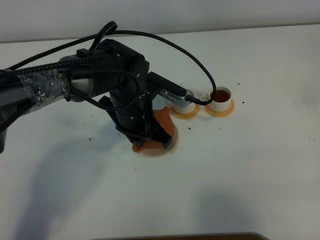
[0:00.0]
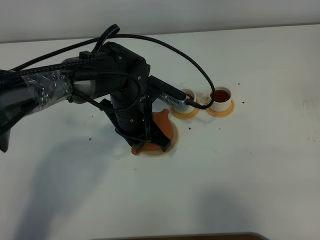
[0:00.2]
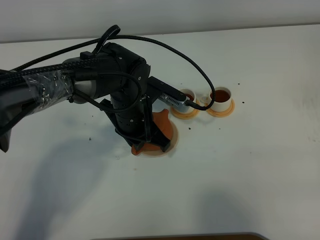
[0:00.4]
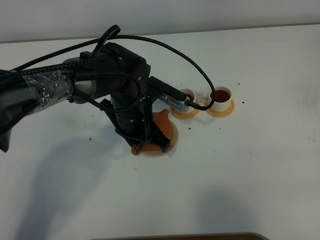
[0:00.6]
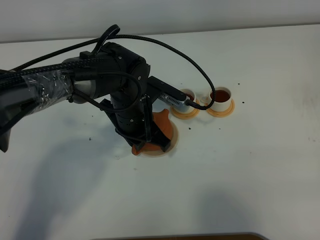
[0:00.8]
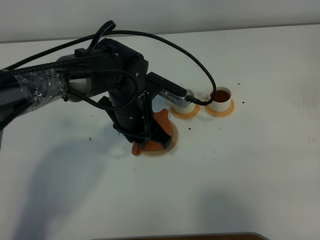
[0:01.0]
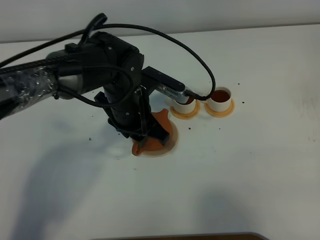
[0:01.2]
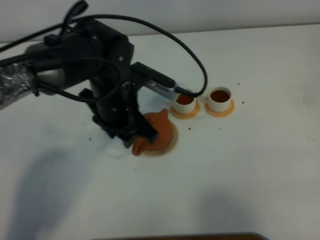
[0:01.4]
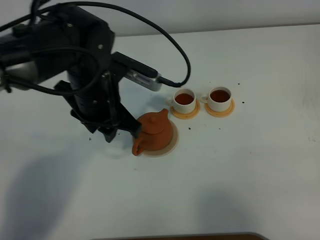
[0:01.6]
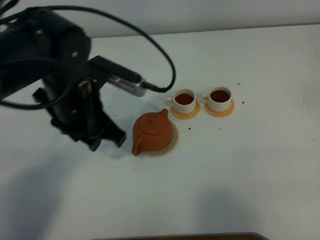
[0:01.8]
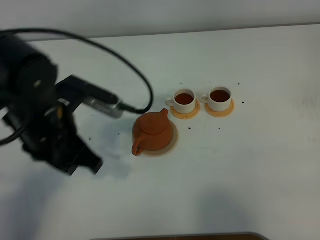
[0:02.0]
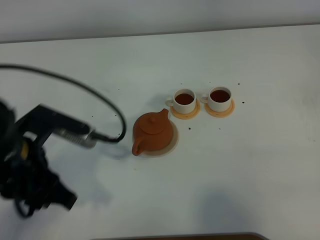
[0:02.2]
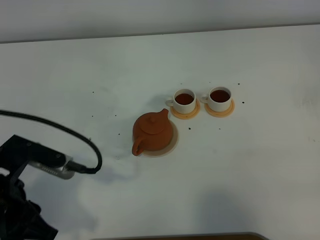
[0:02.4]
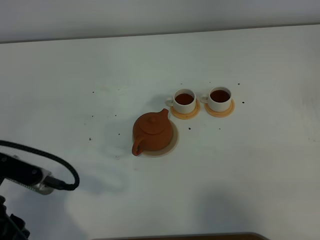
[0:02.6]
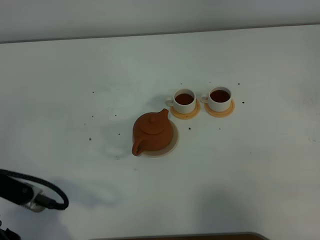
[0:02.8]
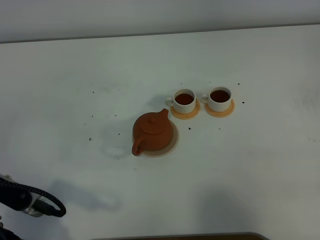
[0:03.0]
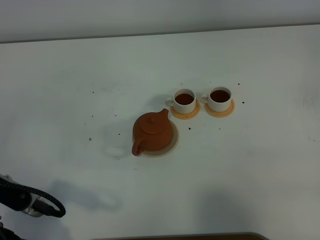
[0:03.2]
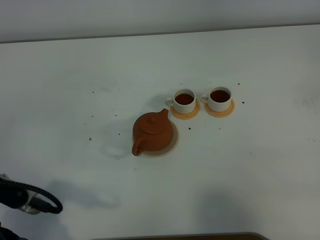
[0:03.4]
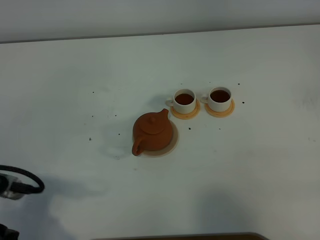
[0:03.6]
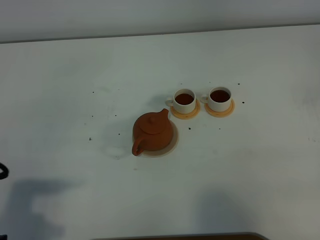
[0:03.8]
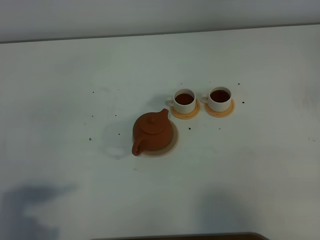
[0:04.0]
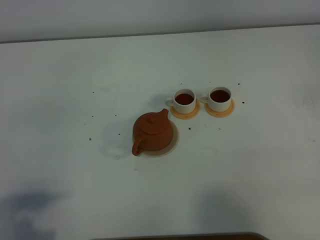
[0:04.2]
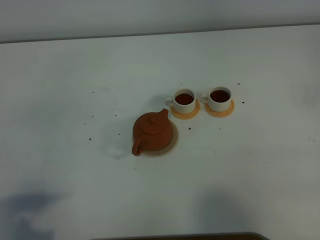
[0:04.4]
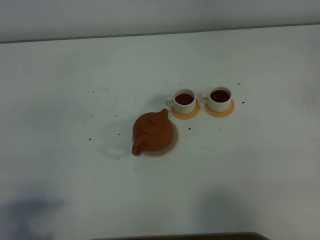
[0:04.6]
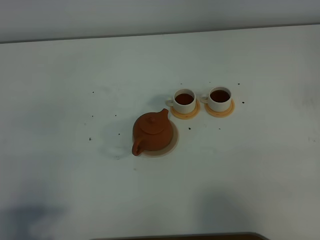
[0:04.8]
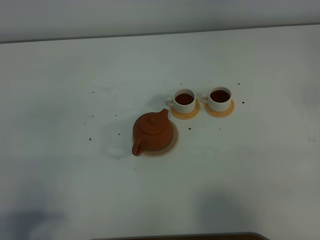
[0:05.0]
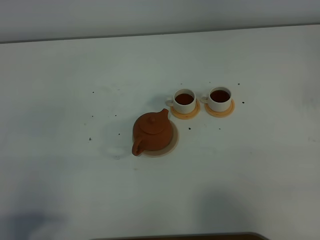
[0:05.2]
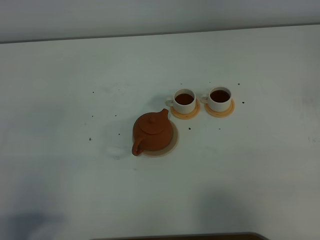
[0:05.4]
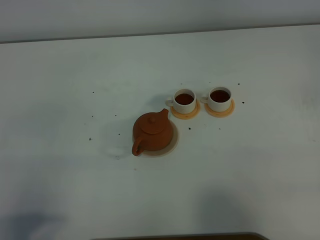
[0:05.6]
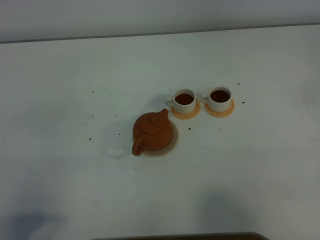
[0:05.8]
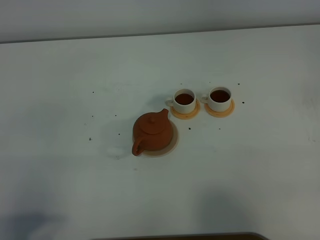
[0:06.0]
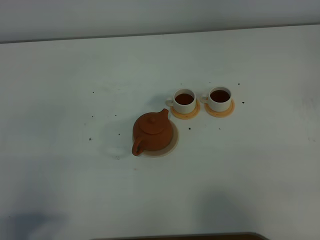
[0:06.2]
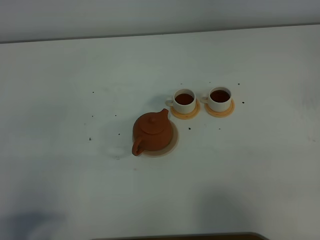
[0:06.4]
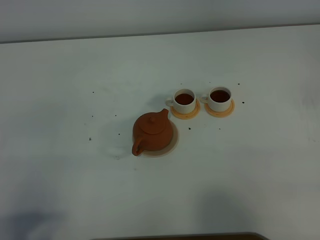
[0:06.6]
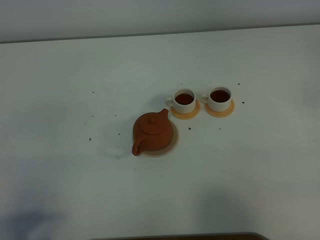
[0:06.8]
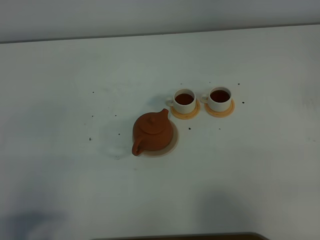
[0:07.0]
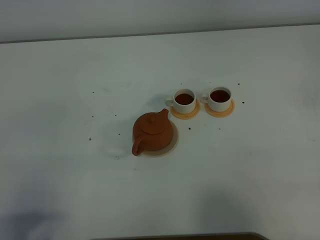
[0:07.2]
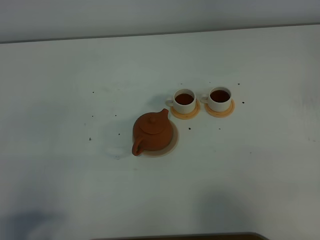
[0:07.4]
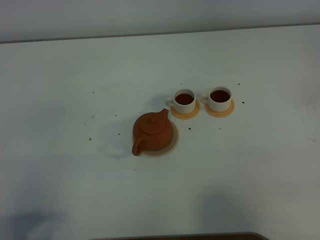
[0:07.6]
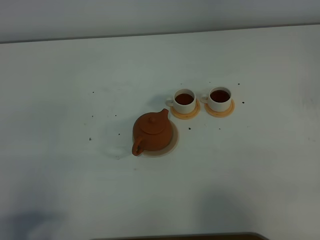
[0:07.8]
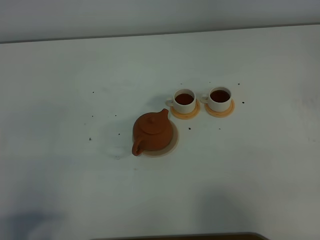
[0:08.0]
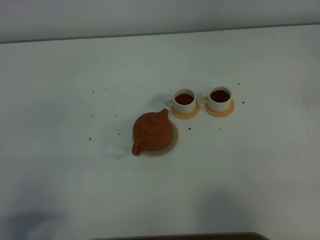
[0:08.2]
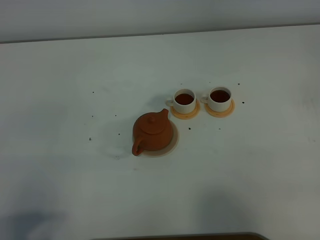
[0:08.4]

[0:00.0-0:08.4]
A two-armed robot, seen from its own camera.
Task of the whole recording: grasp the brown teapot and pour the tea into the two white teacups one by one, put the brown teapot back in its original place.
0.0 to 1.4 s: The left gripper moves upward, some 5 cm, and opens its fingers.
1.4 to 2.8 s: The left gripper heads backward and to the left, covering about 25 cm.
2.8 to 4.2 s: The left gripper travels to the left and backward by roughly 5 cm.
5.6 to 8.4 s: The two grippers keep their place.

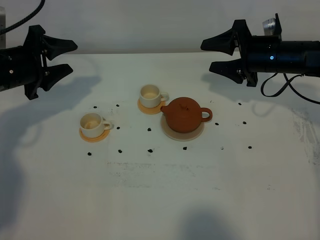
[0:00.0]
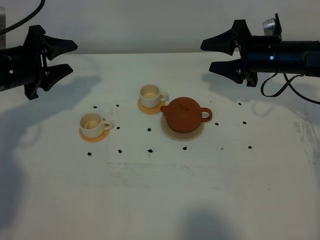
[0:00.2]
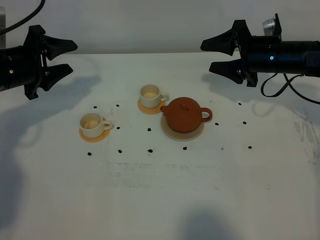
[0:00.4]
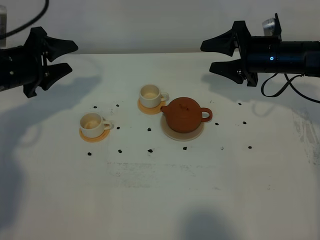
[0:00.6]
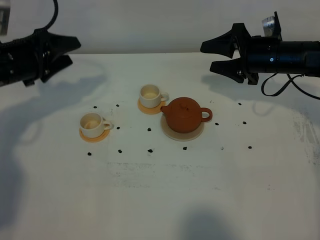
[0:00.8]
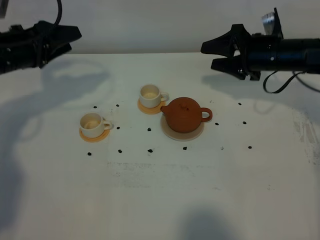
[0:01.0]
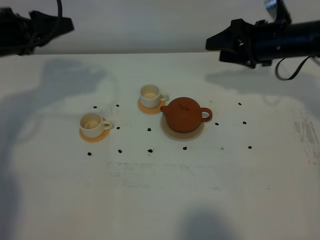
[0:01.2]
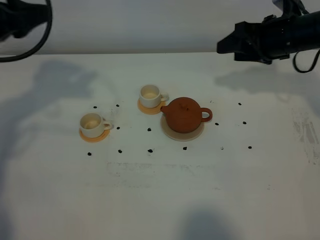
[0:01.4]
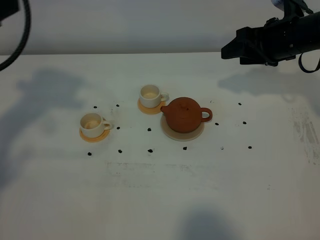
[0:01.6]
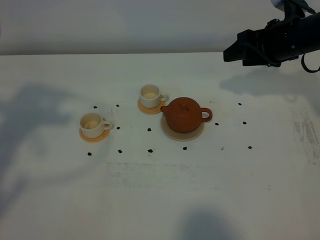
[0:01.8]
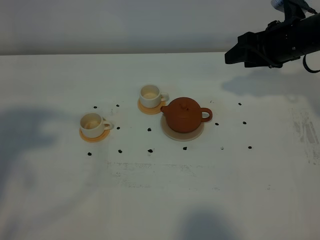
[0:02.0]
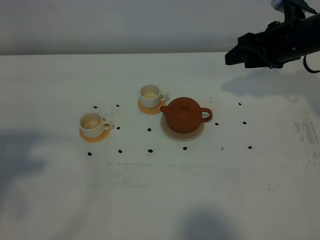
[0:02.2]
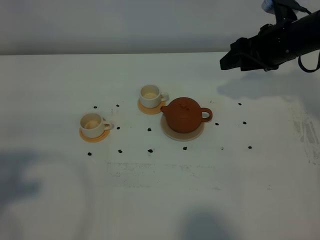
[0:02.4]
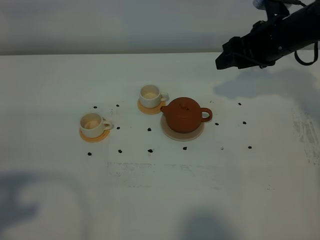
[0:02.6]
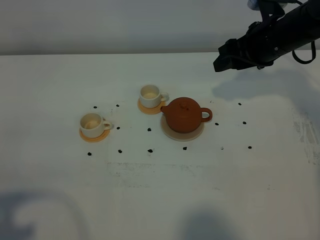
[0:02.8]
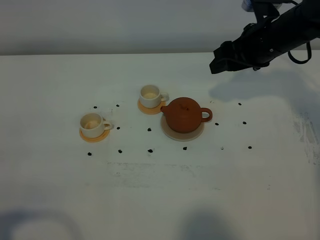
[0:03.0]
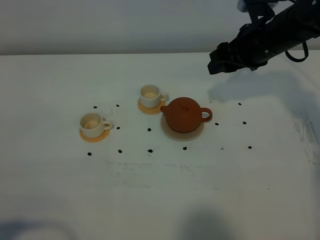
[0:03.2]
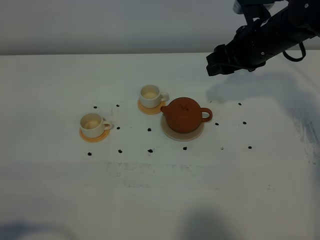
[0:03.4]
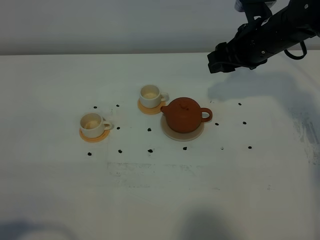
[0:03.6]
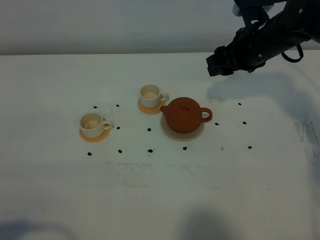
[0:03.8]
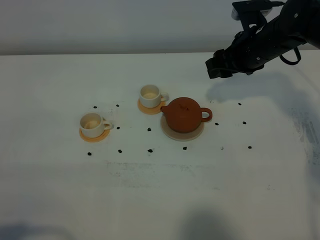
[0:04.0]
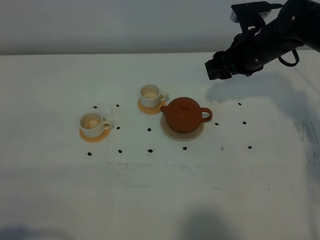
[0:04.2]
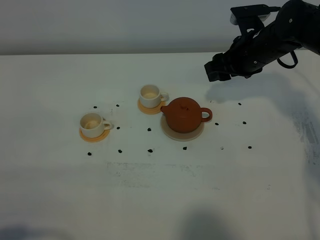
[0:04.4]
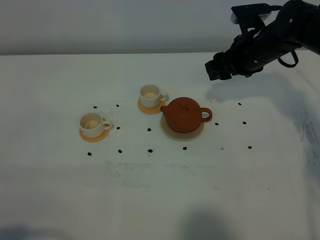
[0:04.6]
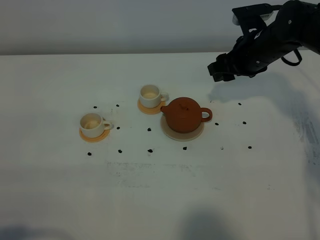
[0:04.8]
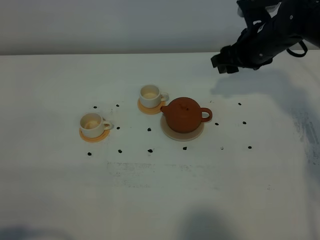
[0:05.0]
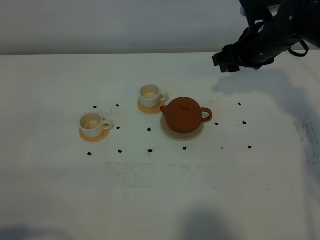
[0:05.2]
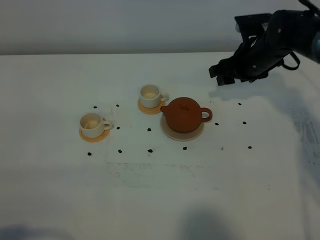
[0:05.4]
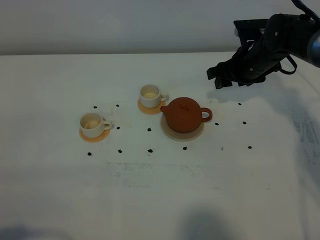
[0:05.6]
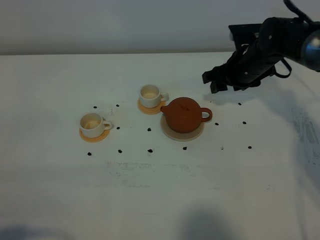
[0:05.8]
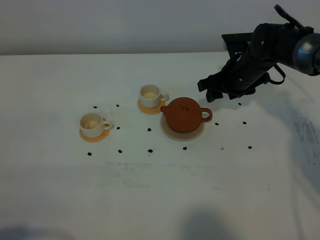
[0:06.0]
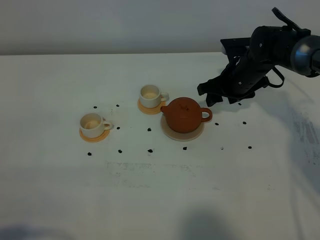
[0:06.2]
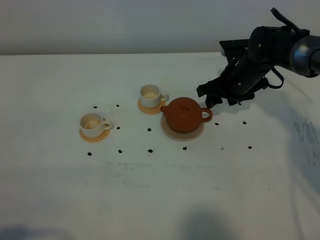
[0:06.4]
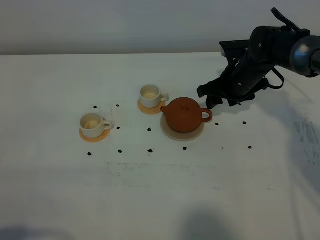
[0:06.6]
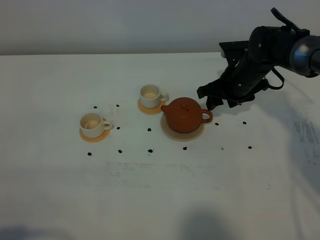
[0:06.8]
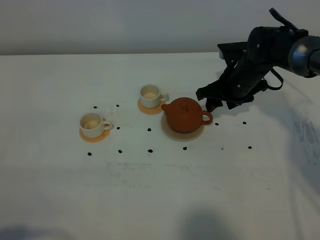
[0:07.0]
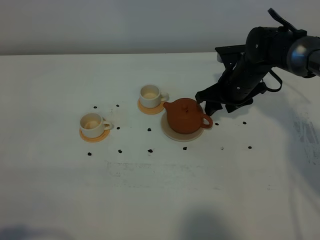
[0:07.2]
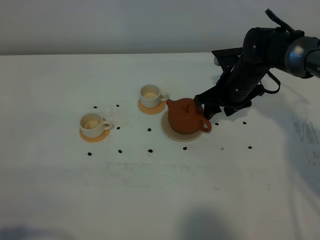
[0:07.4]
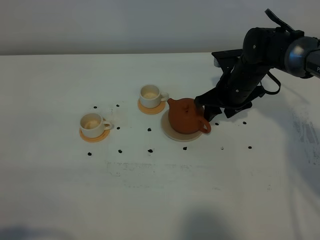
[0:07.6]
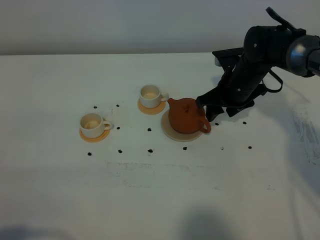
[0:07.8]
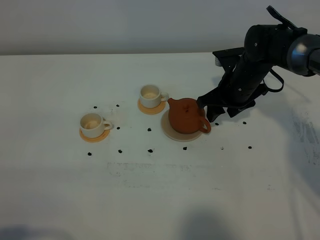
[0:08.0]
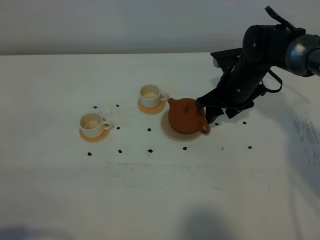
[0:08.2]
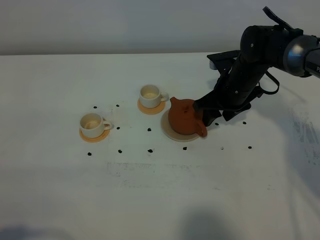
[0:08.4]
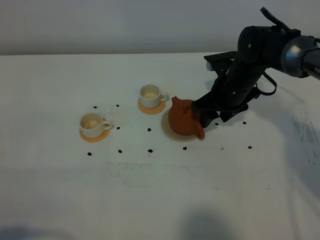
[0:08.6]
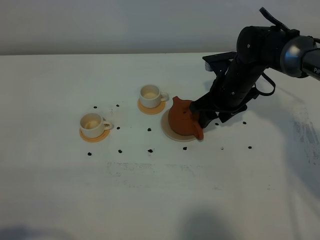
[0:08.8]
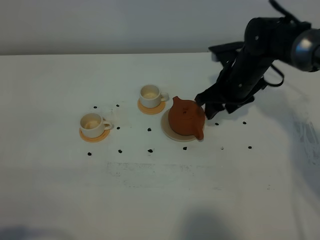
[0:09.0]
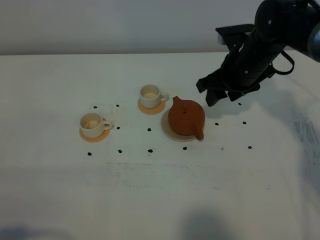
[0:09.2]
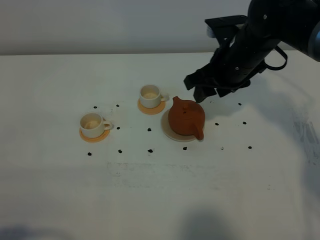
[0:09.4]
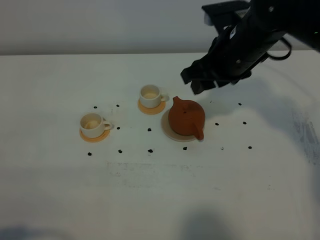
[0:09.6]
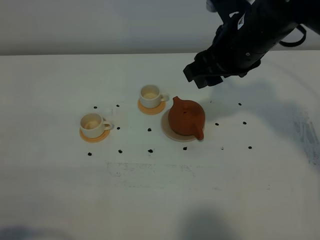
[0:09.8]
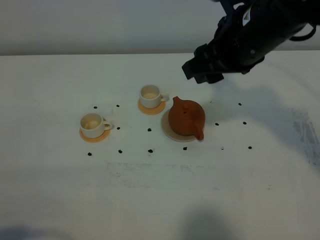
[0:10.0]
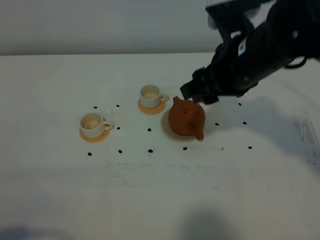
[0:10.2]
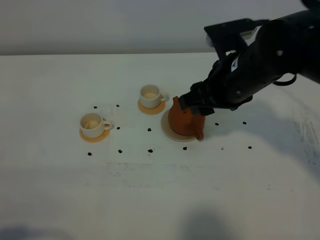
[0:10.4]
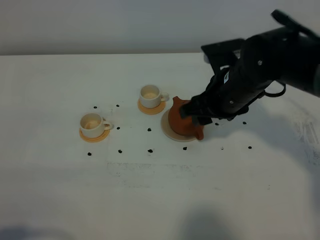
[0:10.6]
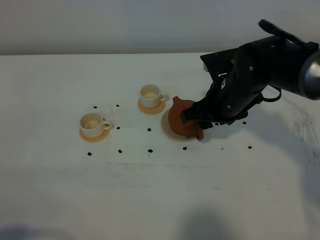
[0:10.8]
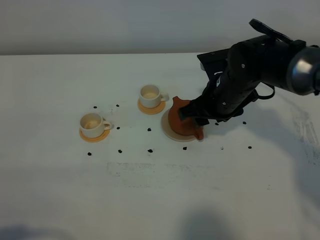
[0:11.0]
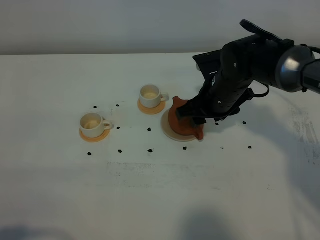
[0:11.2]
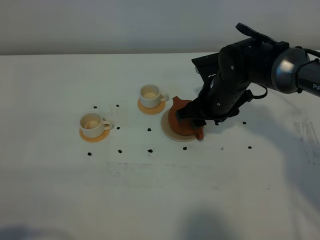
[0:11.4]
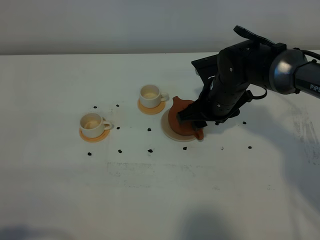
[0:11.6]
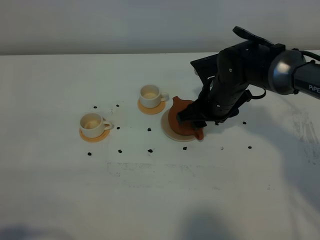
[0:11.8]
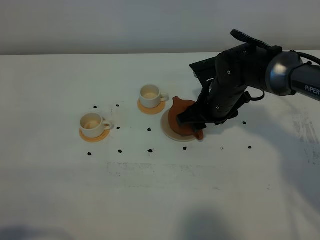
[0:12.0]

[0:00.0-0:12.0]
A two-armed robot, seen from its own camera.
Task of the whole recording: grasp the brown teapot and pour the tea into the two white teacups one by one, put the brown teapot back in its original place.
0.0 to 1.6 s: The left gripper goes some 25 cm upward and backward. The right gripper heads upward, covering roughly 5 cm.
1.6 to 3.0 s: The left gripper heads backward, covering roughly 25 cm.
3.0 to 4.4 s: There are only small adjustments of the grippers.
4.4 to 6.0 s: The right gripper goes approximately 5 cm downward.
6.0 to 9.0 s: There are only small adjustments of the grippers.
9.0 to 10.4 s: The right gripper heads backward and upward, covering roughly 10 cm.
10.4 to 12.0 s: The right gripper travels downward and forward by about 10 cm.

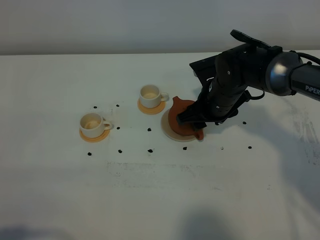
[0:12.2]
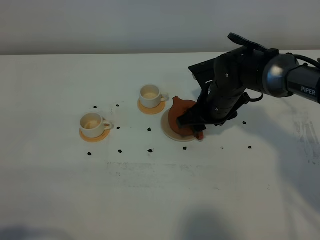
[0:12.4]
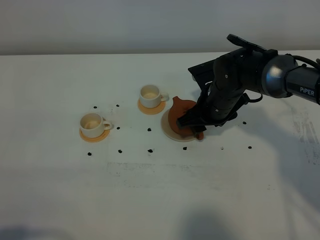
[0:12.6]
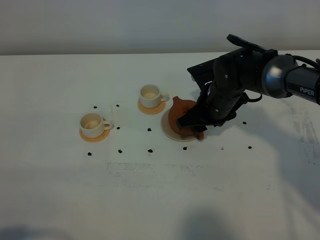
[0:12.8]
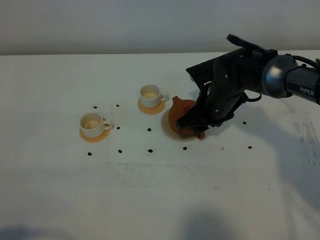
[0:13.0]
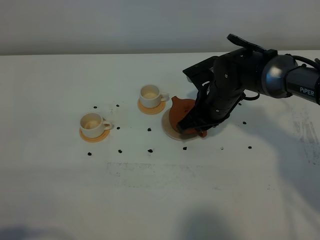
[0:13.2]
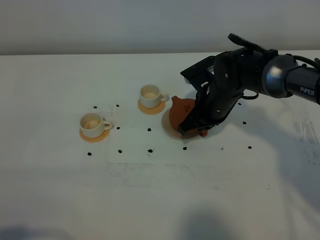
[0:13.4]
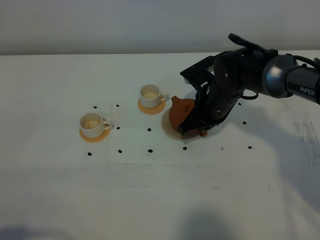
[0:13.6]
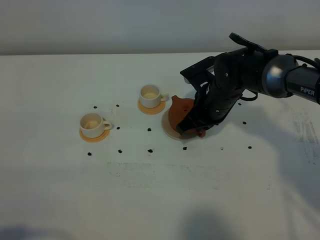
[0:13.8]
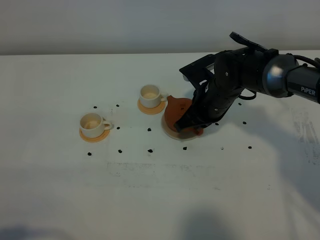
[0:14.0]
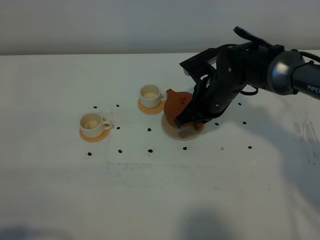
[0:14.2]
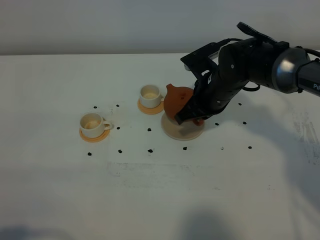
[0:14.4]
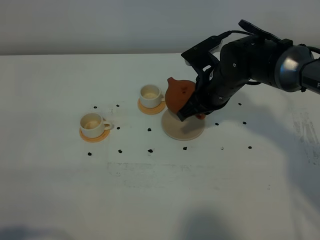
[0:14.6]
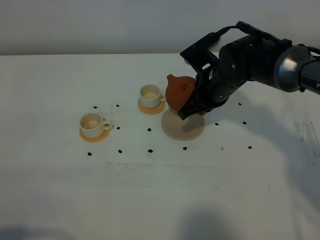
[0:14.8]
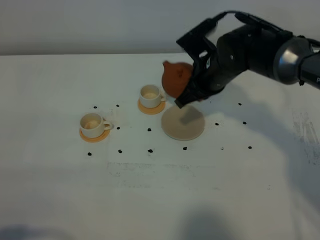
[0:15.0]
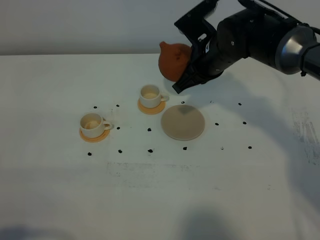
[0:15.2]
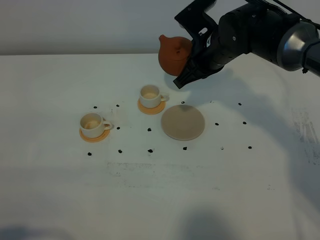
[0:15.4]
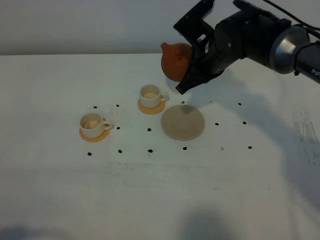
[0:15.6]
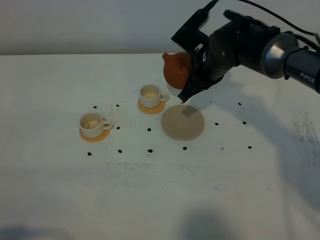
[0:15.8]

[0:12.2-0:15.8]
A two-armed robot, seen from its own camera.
Task of the whole recording: grasp the brown teapot and pour the tea into the two white teacups one by one, put the brown teapot back in its original place.
Step, 12.2 to 14.6 s: Pick up the teapot with the right gripper.
12.2 to 14.0 s: The right gripper closes.
14.0 to 15.8 s: The right gripper changes place by about 5 cm.
